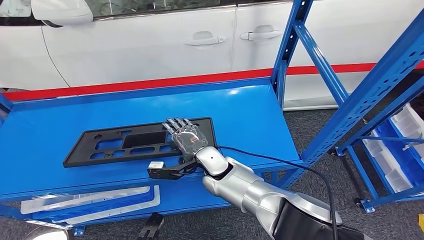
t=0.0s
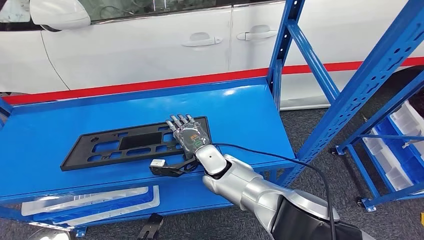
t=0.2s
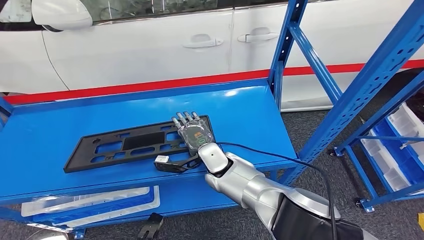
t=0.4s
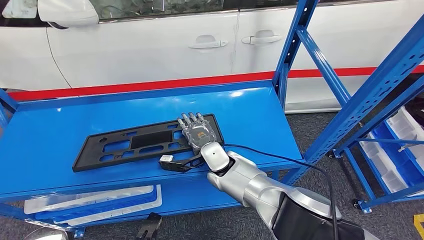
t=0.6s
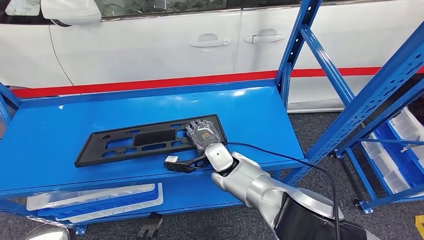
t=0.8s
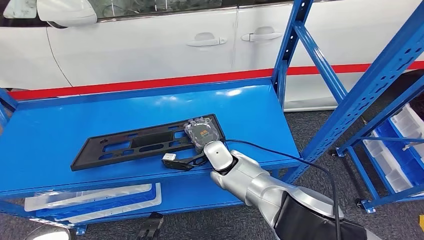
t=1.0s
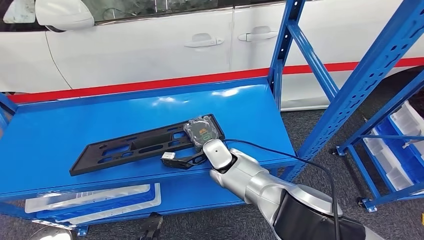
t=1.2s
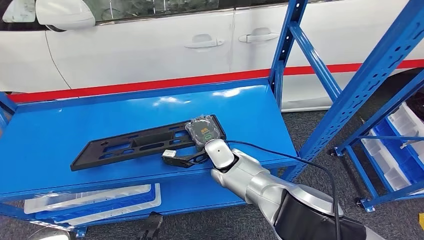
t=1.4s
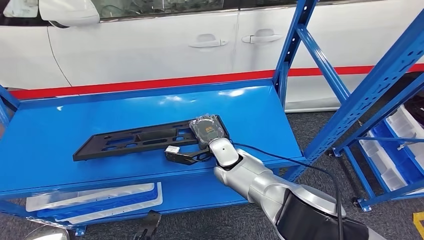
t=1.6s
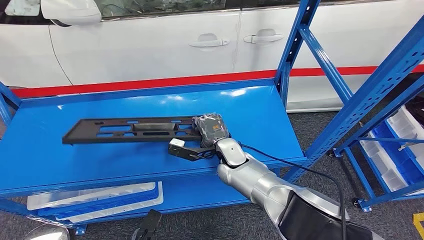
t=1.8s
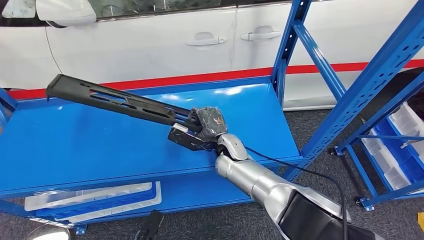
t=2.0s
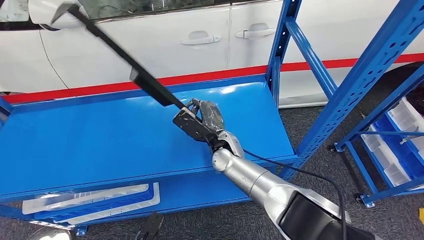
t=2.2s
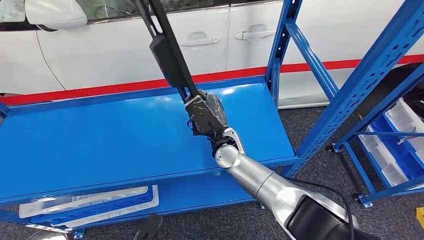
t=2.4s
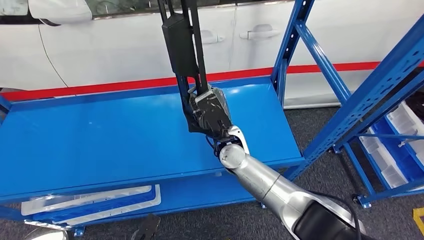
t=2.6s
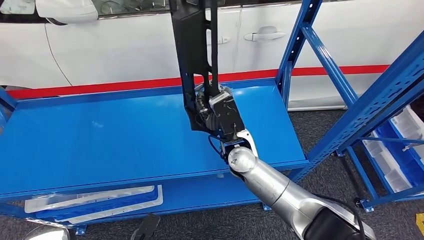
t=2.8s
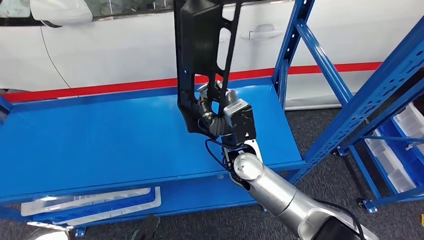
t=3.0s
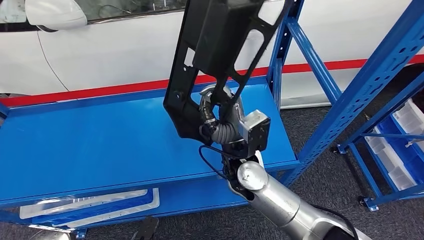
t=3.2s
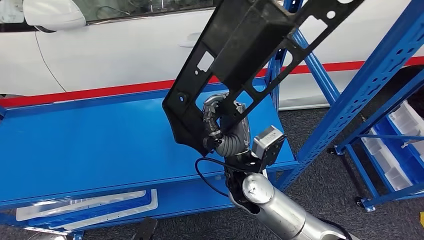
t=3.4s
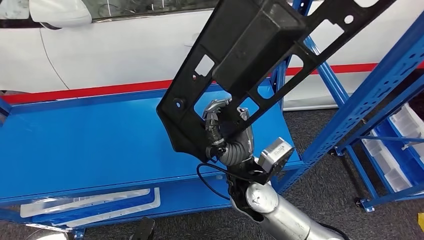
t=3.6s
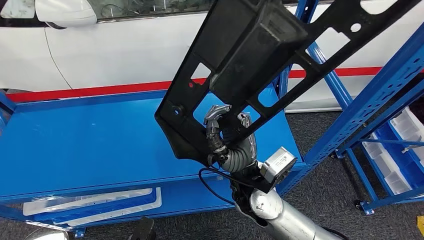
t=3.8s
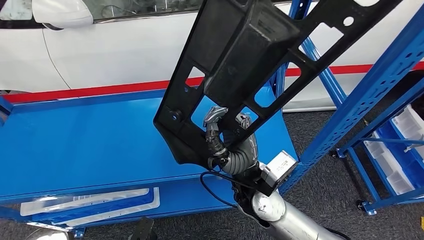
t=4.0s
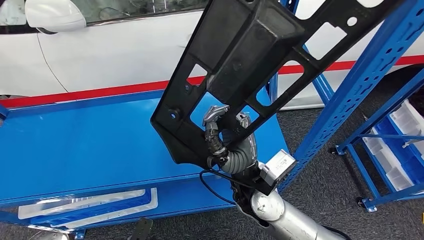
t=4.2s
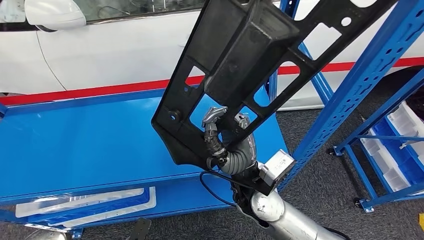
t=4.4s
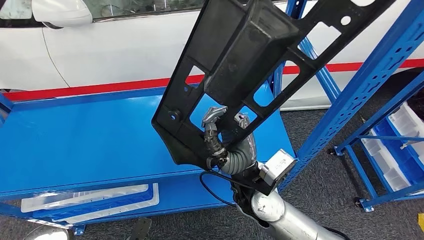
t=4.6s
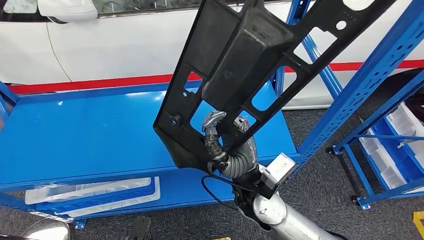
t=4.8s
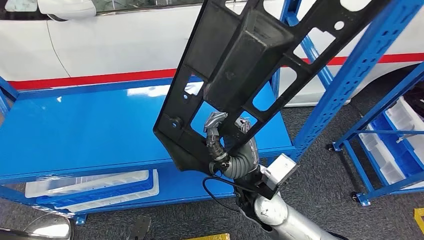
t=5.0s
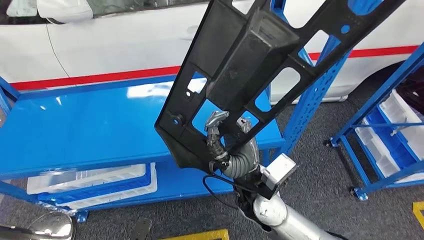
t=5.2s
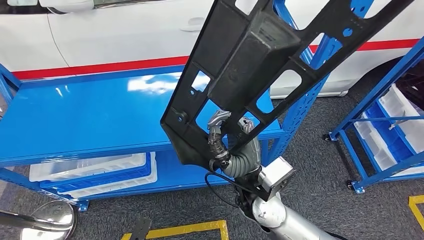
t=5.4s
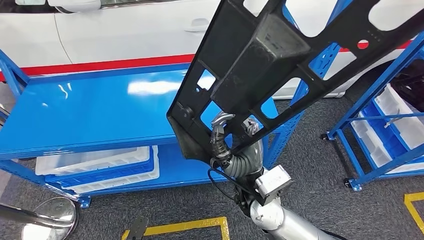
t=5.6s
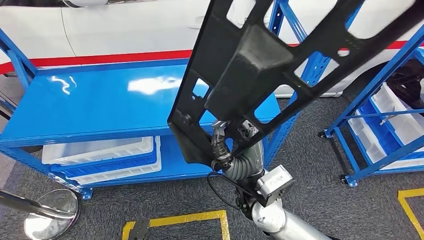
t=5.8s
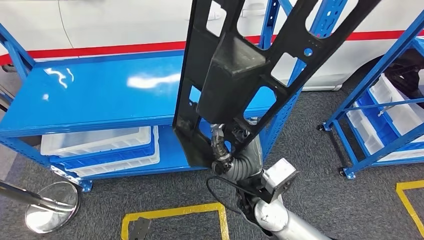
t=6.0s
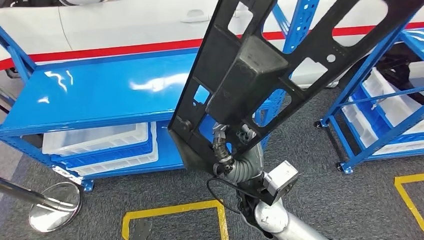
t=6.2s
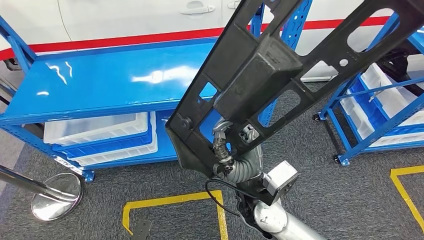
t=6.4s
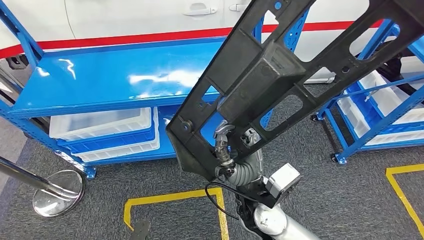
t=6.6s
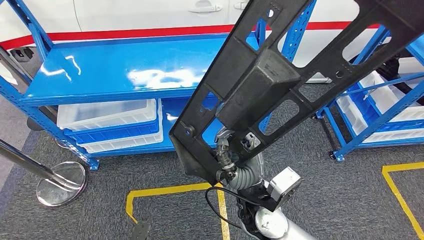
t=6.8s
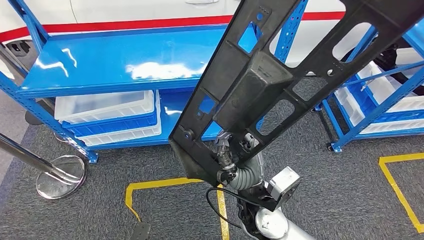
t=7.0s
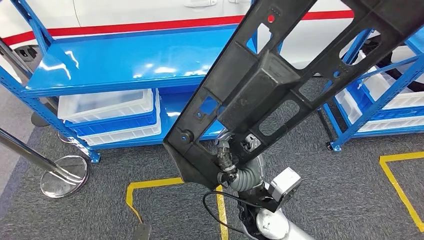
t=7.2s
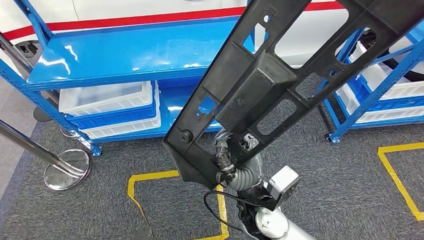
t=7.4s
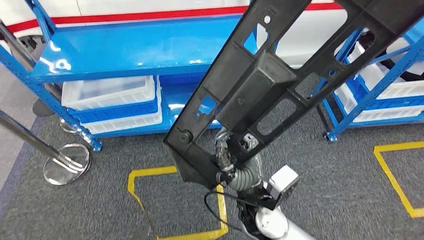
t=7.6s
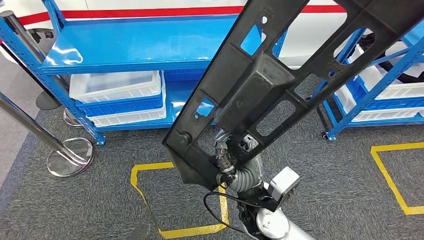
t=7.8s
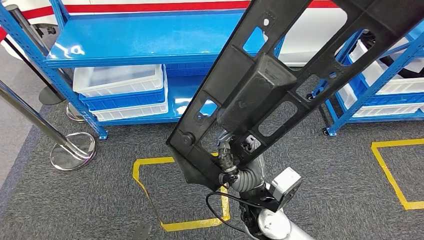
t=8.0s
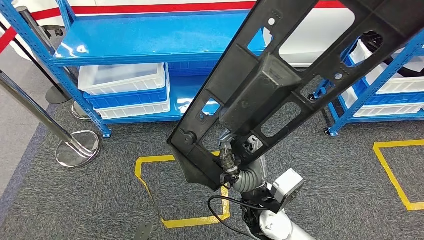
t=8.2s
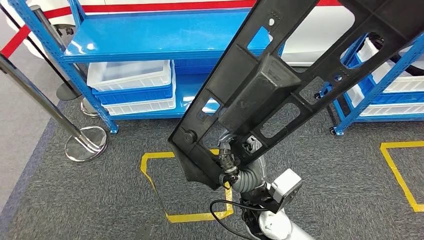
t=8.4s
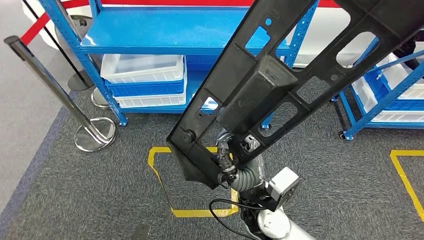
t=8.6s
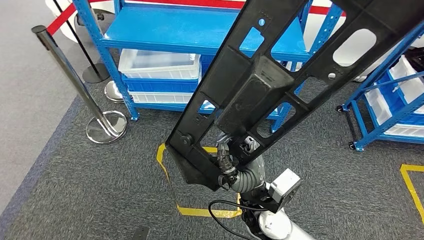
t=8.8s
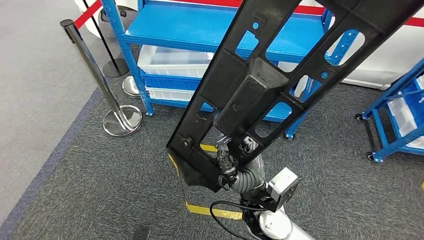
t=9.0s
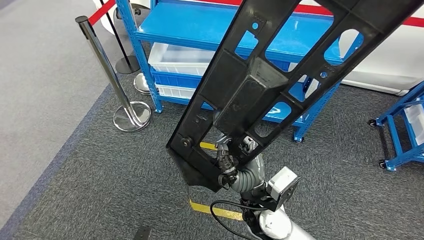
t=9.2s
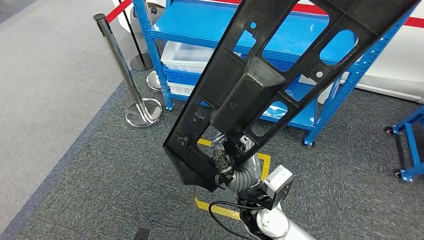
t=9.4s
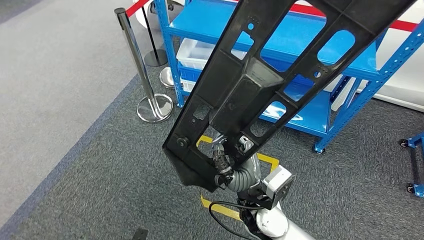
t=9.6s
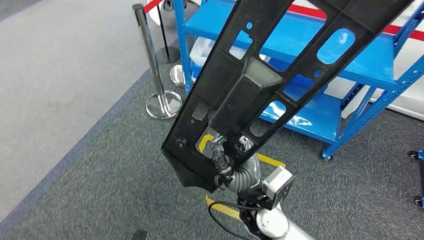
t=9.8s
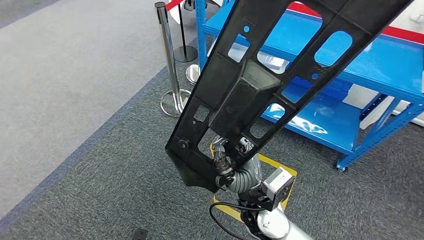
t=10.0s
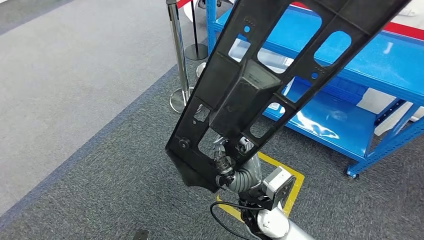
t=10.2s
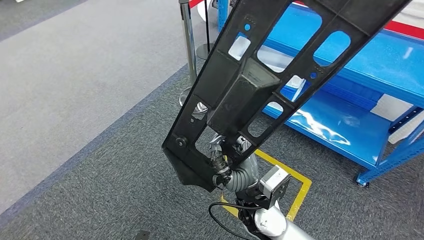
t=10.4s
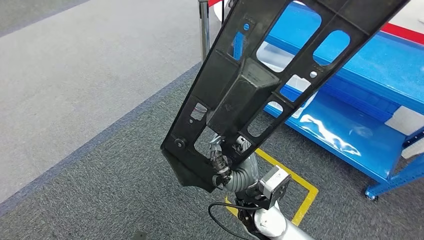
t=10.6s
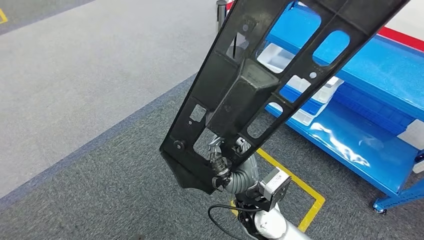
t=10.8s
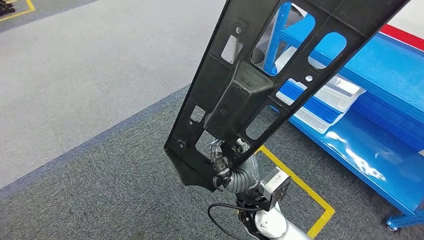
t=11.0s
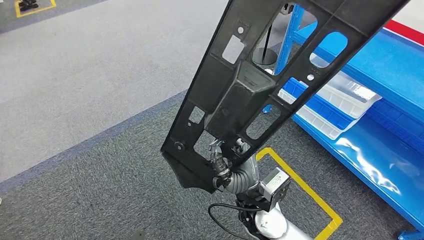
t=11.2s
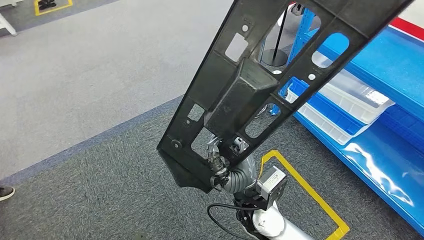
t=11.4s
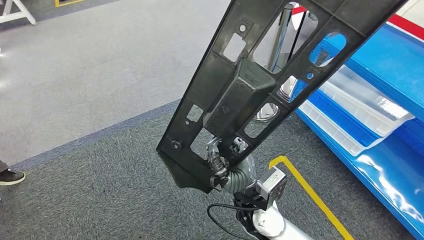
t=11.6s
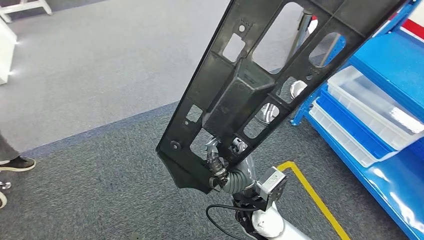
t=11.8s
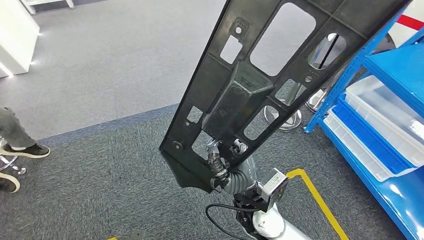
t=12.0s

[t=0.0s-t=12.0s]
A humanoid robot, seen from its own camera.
Step, t=0.0s to t=5.2s: Pick up the large material from the shelf.

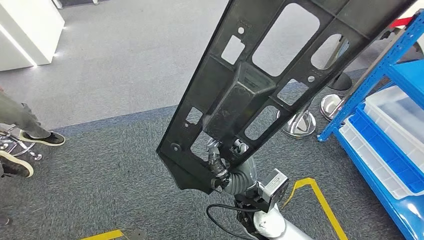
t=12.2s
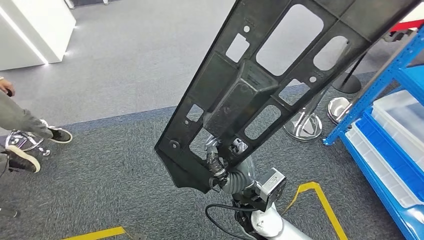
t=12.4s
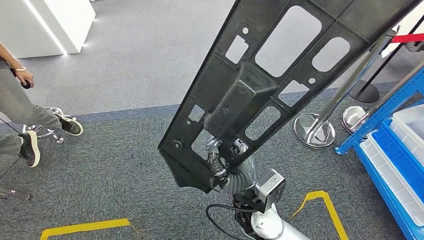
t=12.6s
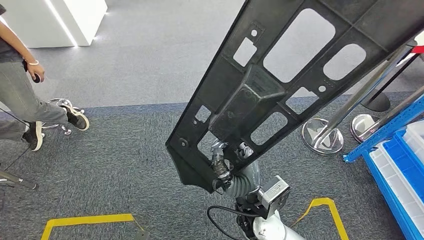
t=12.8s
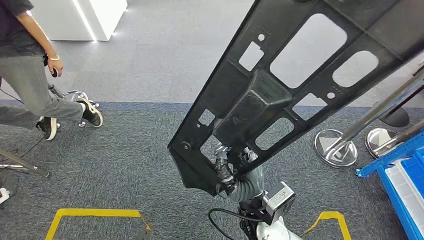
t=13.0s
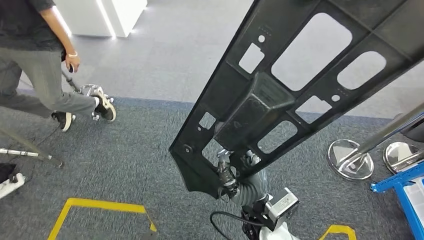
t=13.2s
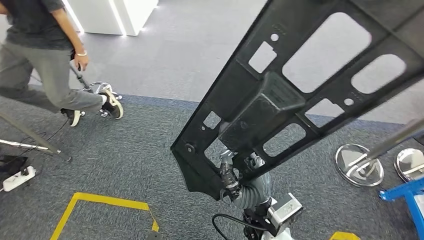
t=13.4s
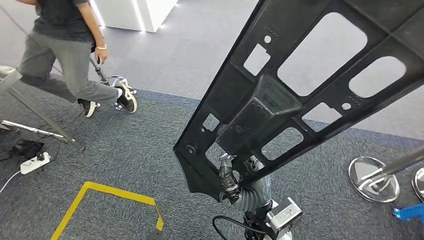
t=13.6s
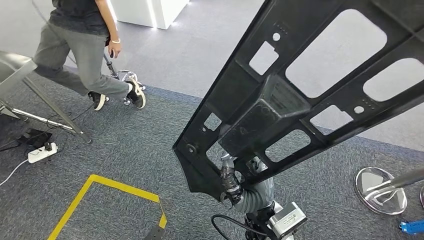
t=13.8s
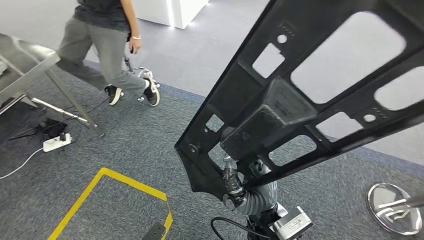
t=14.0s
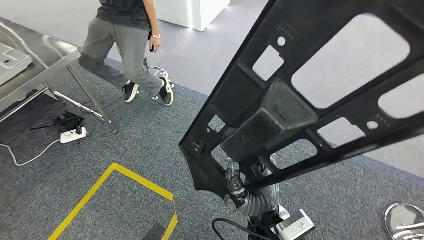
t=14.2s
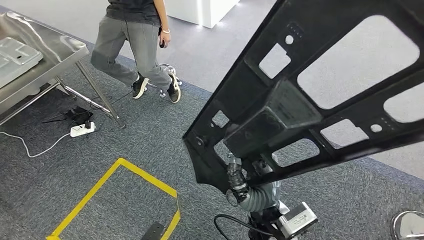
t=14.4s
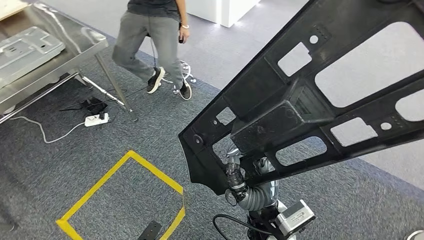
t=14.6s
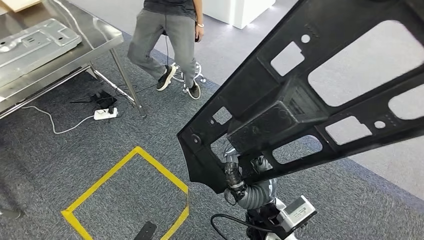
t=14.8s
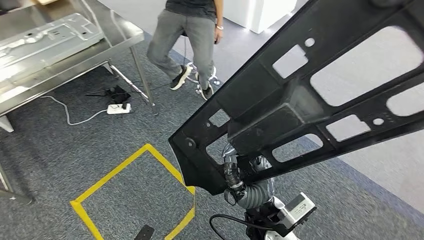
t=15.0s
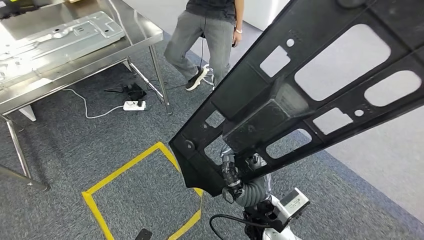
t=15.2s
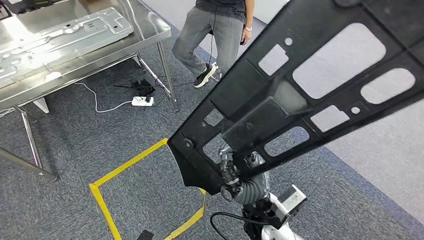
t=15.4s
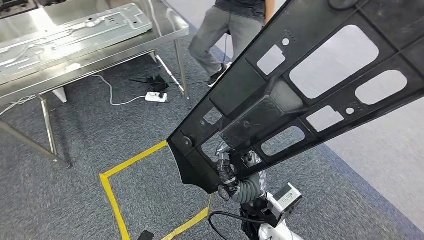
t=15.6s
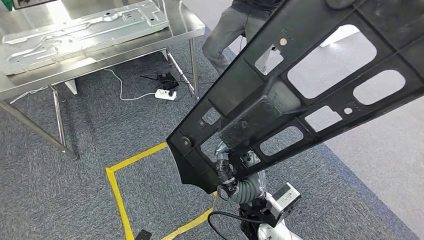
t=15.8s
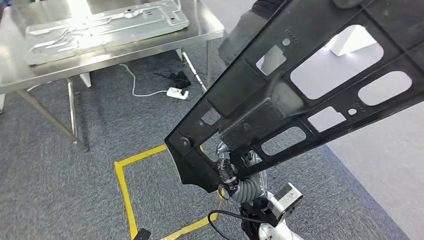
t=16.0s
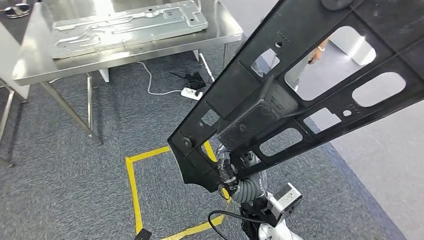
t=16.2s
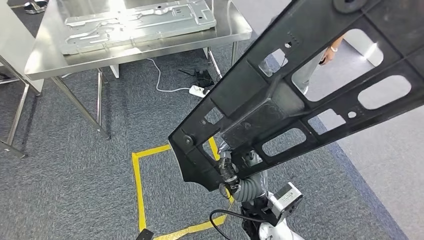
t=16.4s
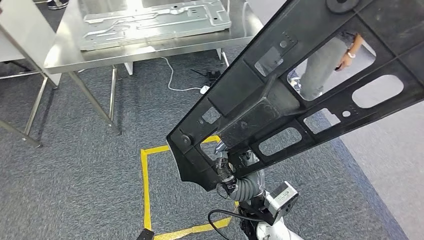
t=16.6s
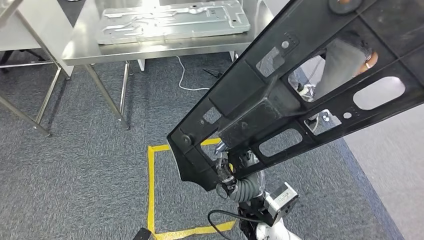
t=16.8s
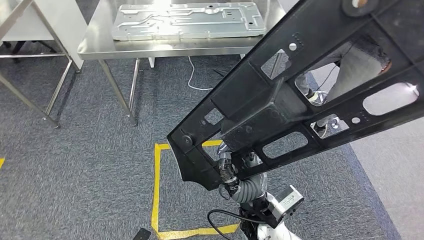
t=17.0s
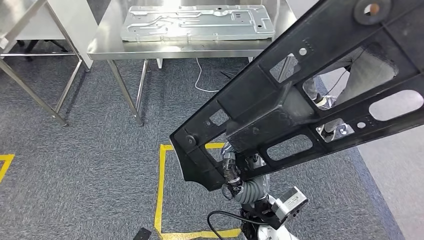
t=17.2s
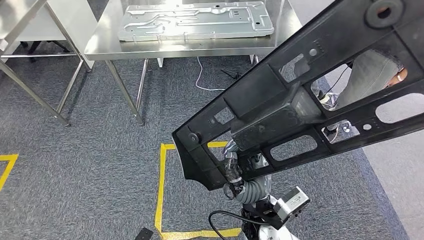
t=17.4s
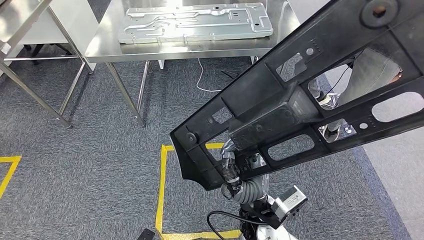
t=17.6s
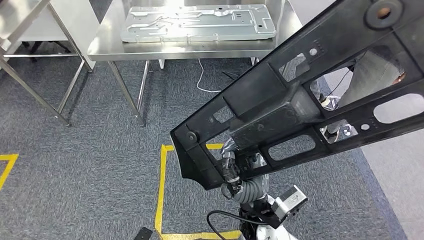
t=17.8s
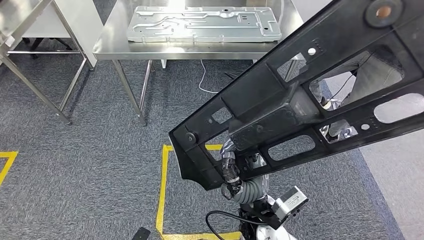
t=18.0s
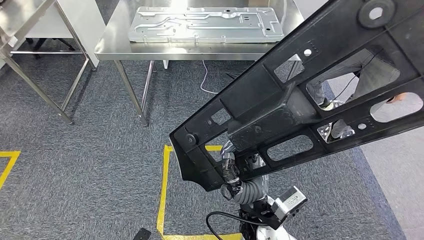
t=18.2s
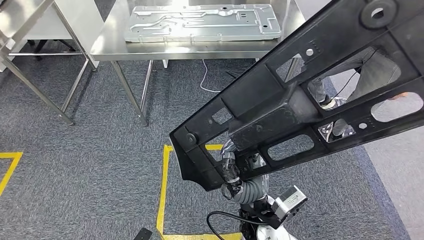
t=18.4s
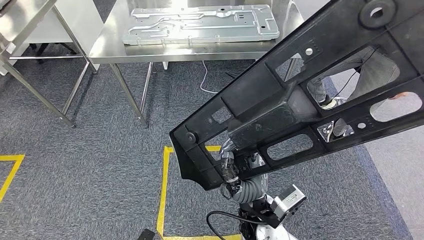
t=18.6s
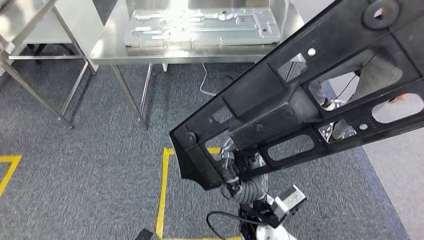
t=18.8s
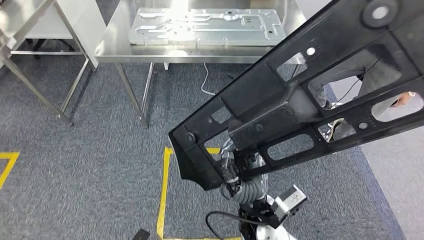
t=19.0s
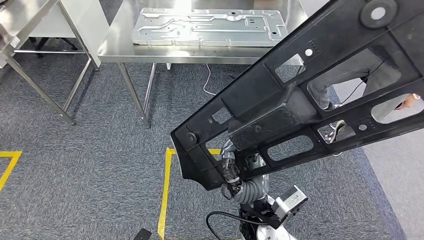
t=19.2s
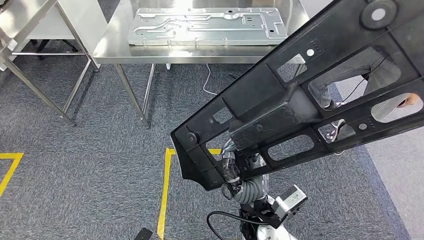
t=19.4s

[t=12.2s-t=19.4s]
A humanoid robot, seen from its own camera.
t=18.0s to t=19.4s: Neither hand changes place.
